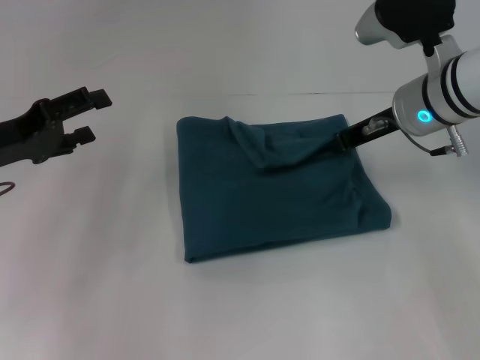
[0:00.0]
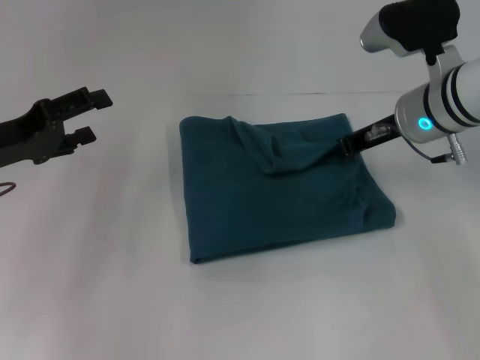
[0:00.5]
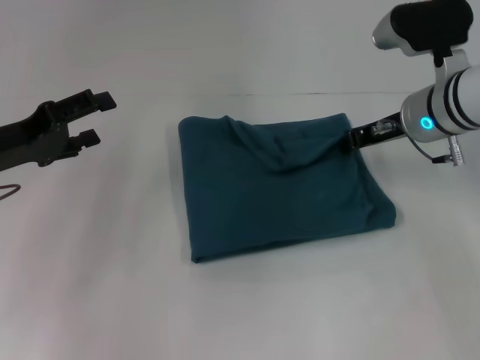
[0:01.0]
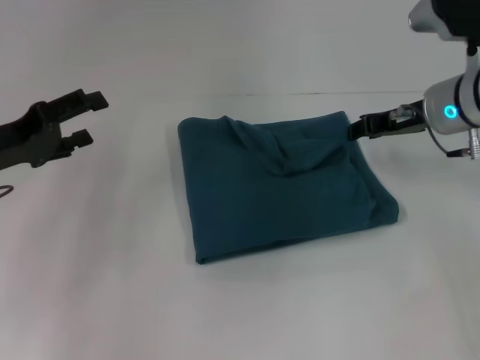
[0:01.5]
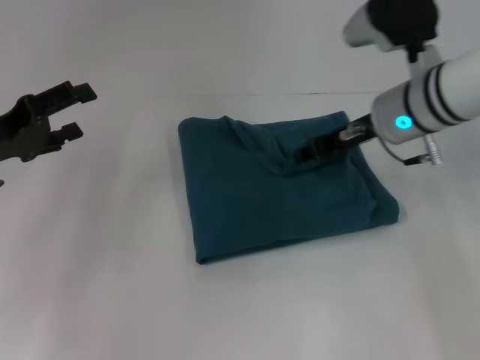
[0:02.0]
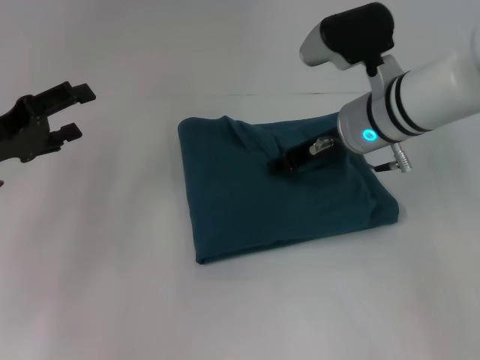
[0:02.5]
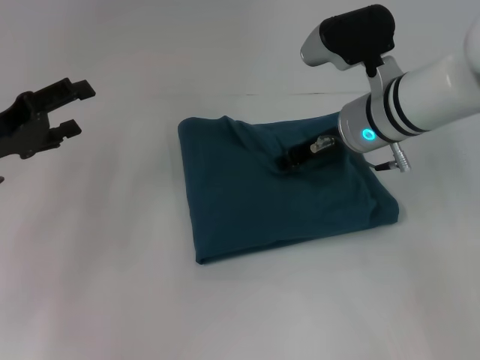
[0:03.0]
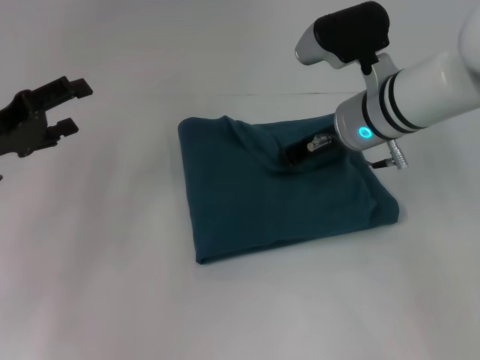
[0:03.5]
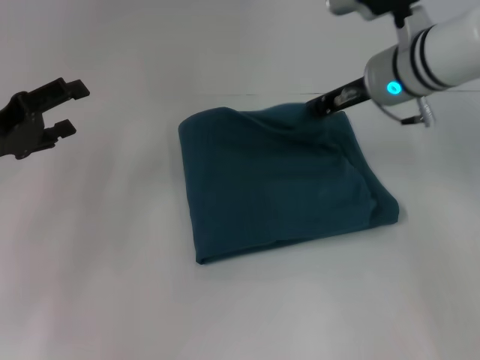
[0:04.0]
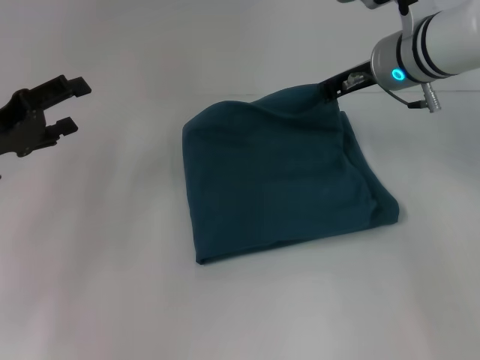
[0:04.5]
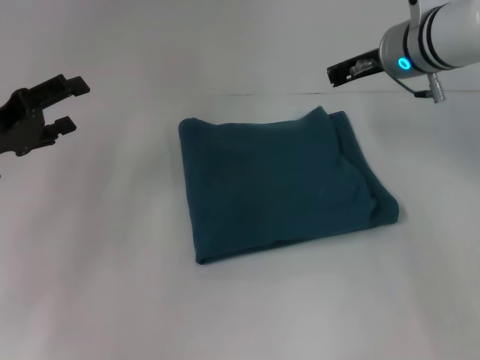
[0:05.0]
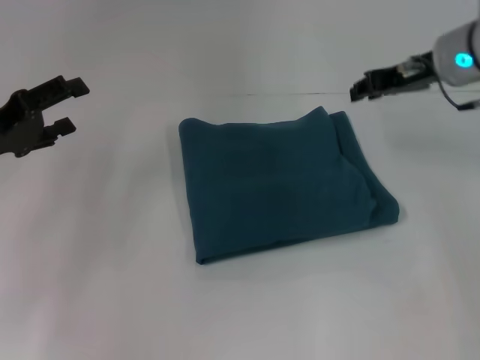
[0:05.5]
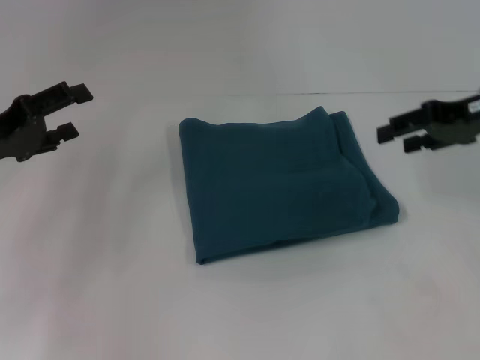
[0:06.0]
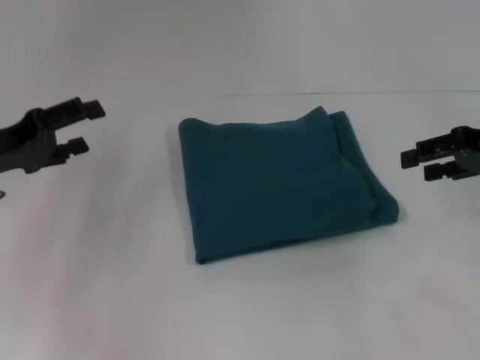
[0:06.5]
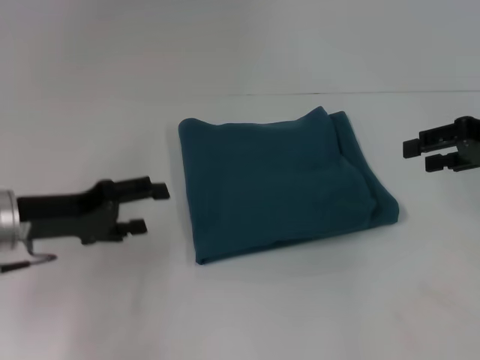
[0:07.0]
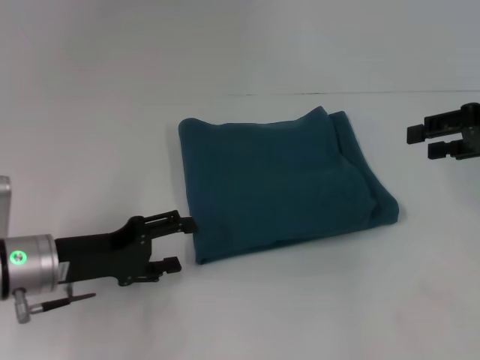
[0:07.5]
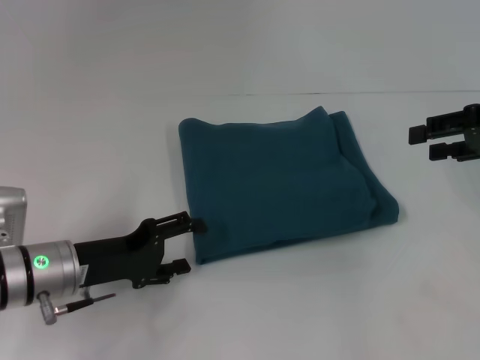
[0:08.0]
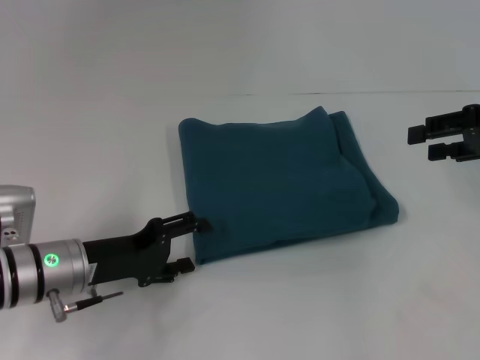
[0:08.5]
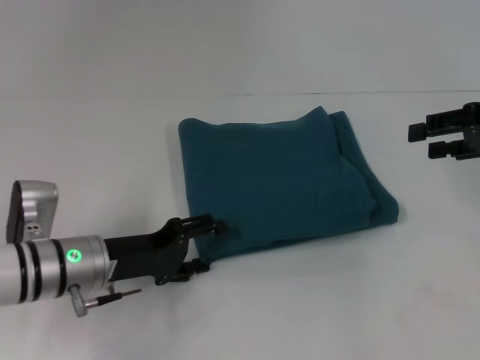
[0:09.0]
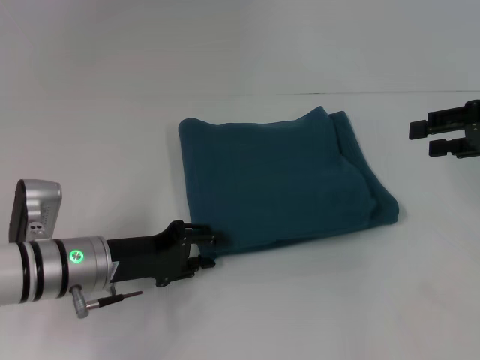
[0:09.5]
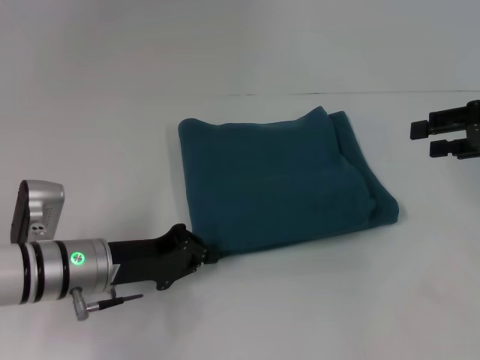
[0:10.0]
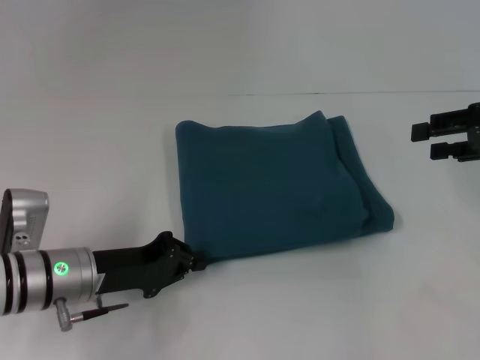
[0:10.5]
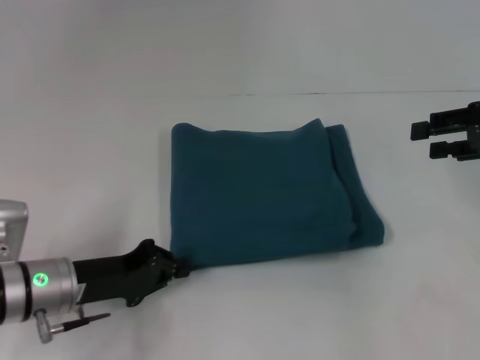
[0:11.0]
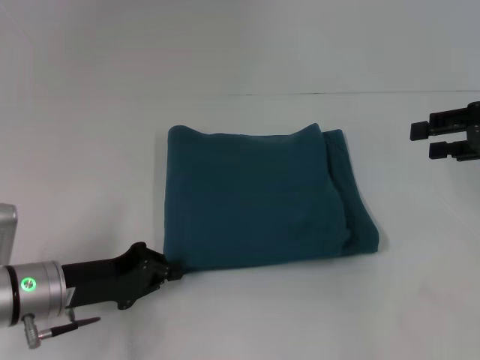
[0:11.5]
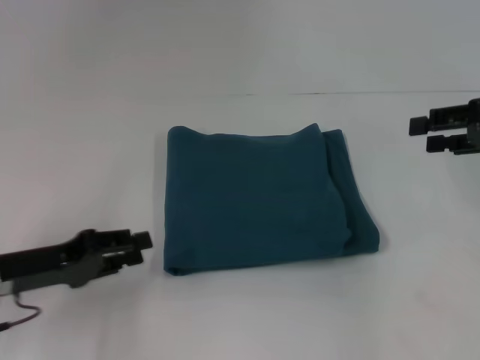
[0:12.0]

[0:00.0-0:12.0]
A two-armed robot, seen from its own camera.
0:00.0 to 0:02.0: The right gripper opens up.
0:02.0 to 0:04.0: The right gripper closes its fingers.
0:04.0 to 0:06.0: The right gripper is displaced to the right by roughly 15 cm, and opens its fingers.
0:06.0 to 0:08.0: The left gripper is displaced to the right and downward by some 15 cm.
0:08.0 to 0:10.0: The left gripper closes its fingers.
0:10.0 to 0:12.0: The left gripper goes approximately 5 cm to the left.

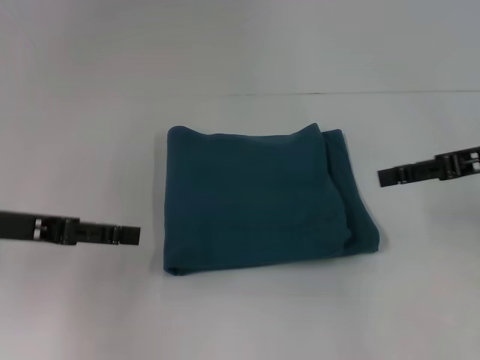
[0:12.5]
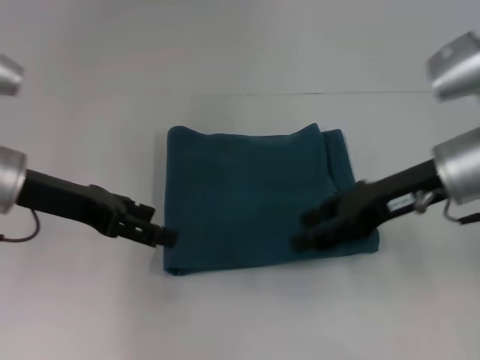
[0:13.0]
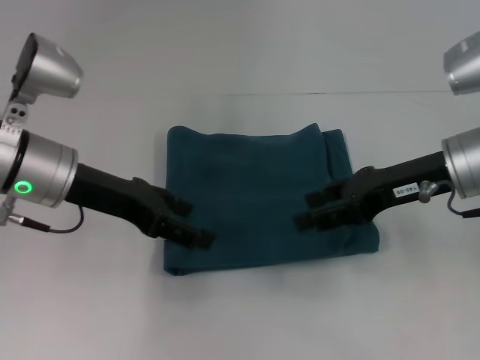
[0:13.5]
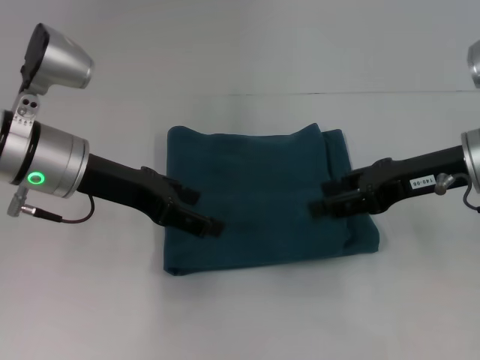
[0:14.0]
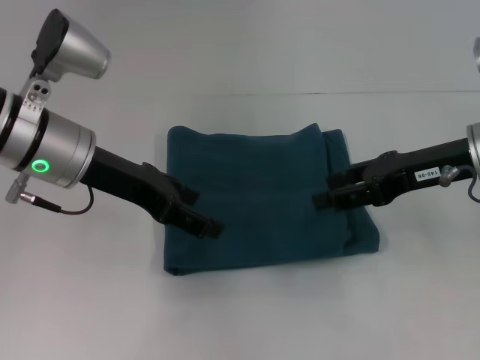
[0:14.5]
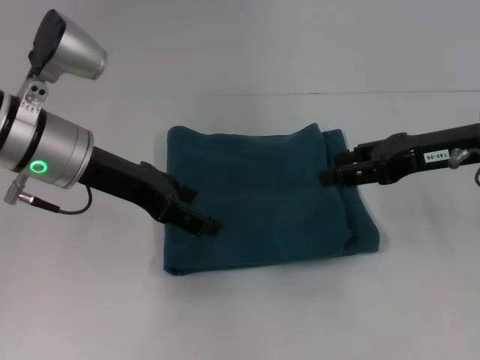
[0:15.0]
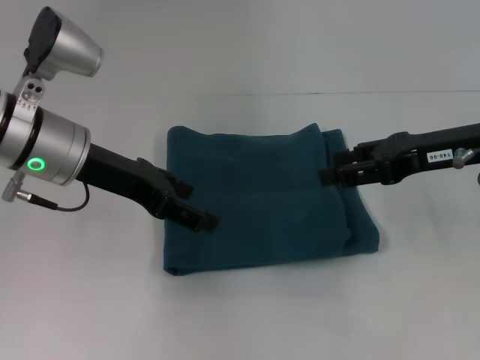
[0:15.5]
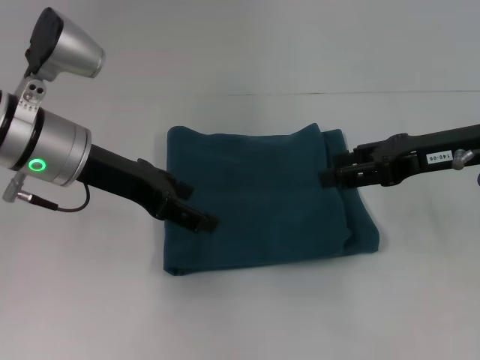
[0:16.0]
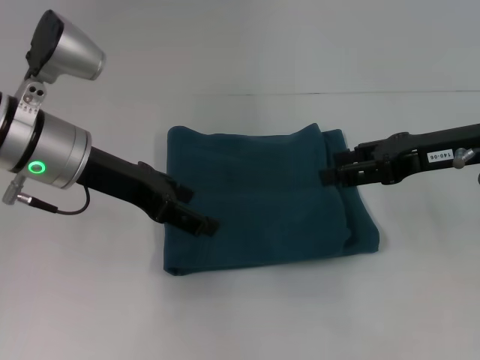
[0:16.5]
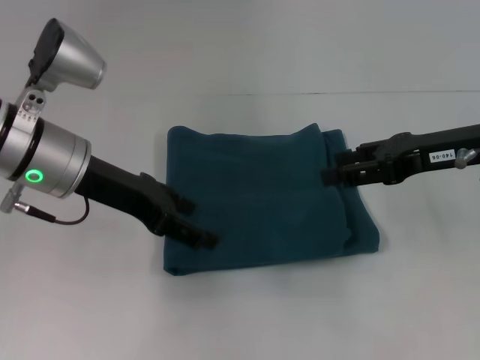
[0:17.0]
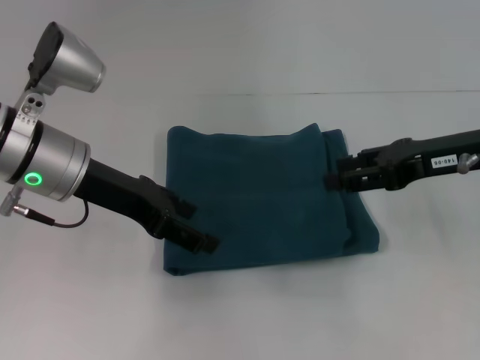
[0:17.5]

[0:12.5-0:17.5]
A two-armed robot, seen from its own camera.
0:12.5 to 0:15.0: The left gripper shifts approximately 10 cm to the right and forward. Meanwhile the right gripper shifts about 5 cm to the left.
0:15.0 to 0:17.5: Neither gripper changes place.
